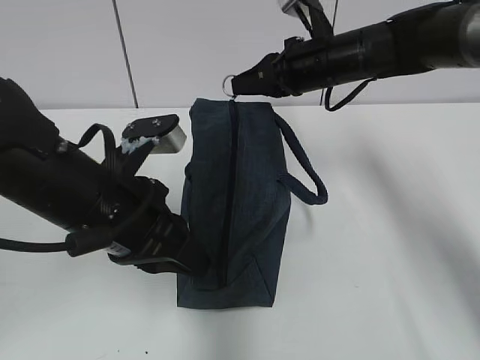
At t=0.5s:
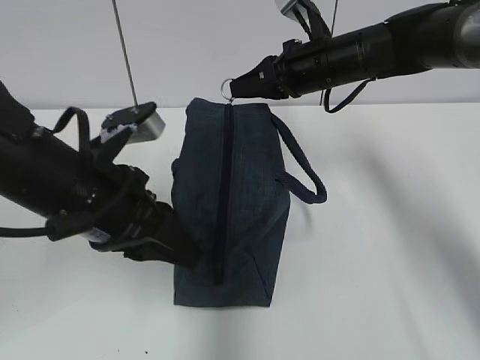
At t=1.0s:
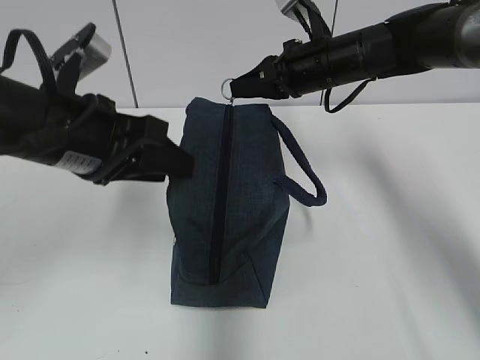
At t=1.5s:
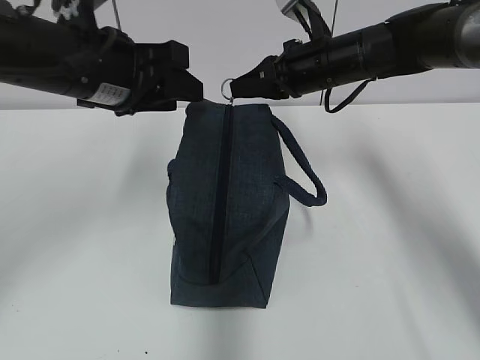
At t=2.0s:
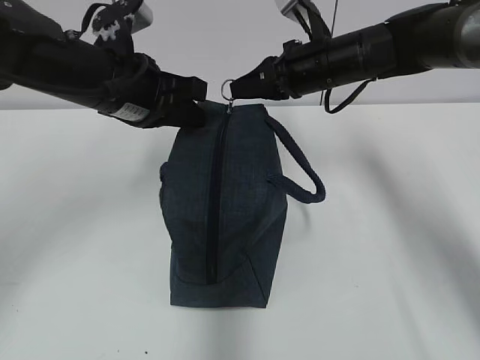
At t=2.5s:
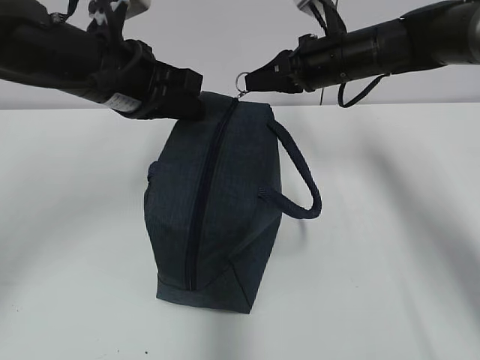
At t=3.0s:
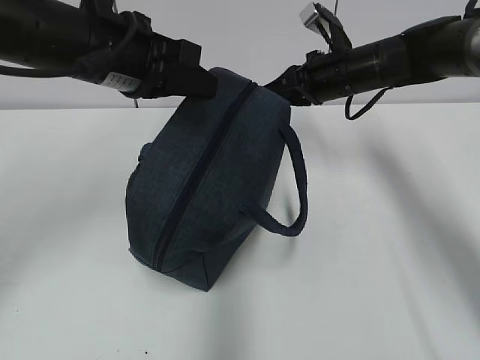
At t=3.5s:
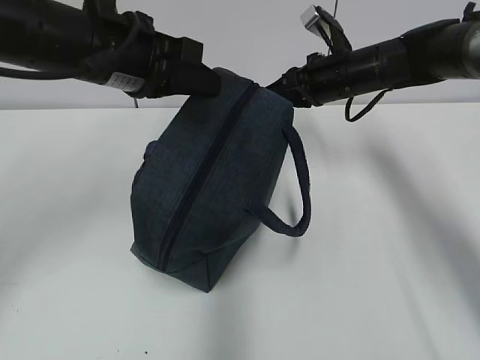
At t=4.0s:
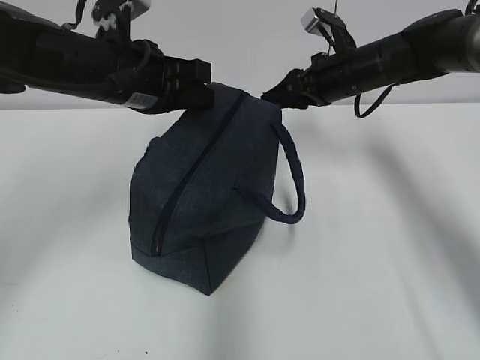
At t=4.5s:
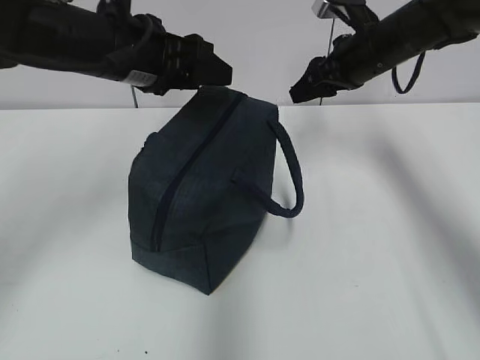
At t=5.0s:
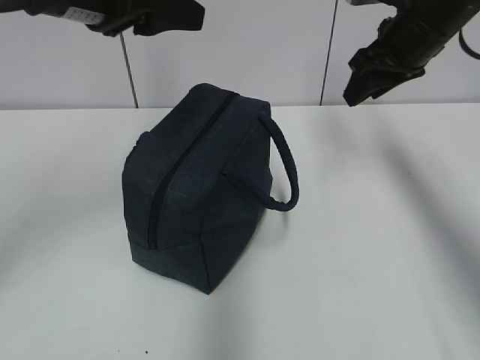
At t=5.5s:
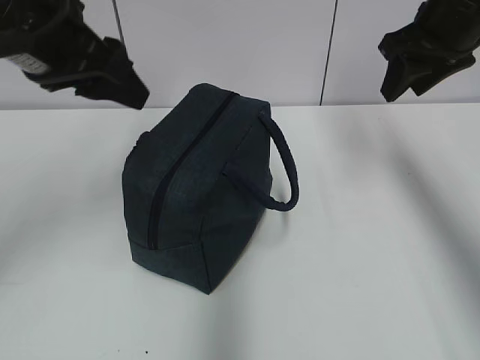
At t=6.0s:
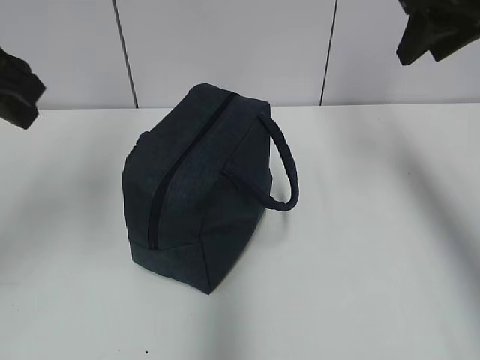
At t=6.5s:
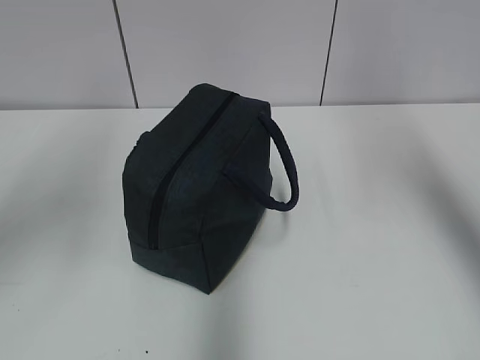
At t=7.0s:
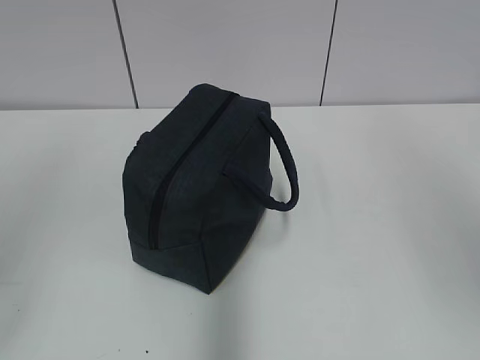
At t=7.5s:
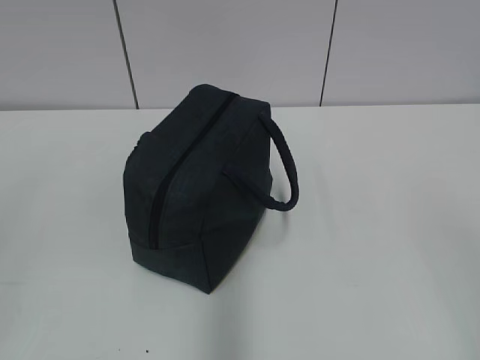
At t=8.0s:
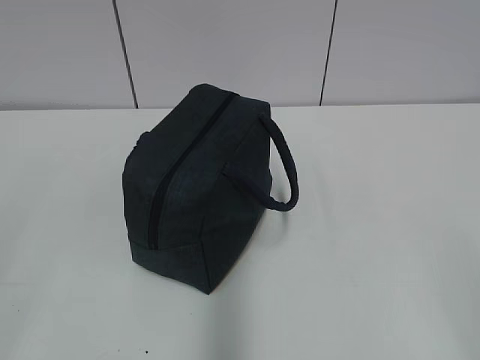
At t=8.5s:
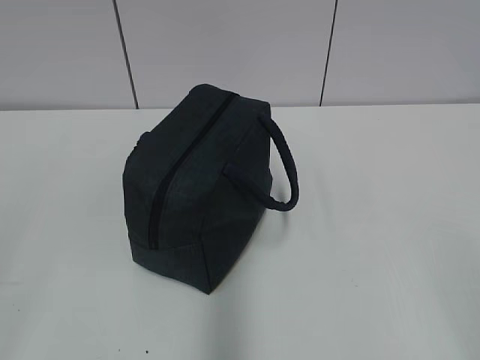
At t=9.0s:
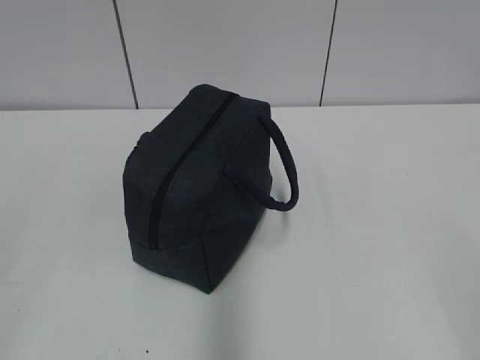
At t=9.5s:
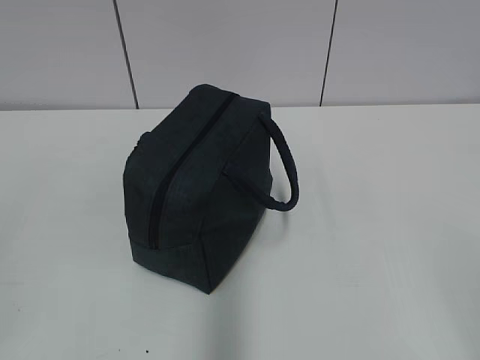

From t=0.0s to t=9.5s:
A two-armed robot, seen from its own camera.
From t=0.0s to t=2.0s: The left gripper shifts roughly 10 cm forward, and opens, then closes again.
From t=2.0s to t=4.0s: The right gripper shifts by about 5 cm, and opens.
From t=4.0s to t=5.5s: The right gripper travels upward, backward and to the right by some 15 cm, while the left gripper is displaced upward and backward by approximately 10 cm, and opens its fingers.
From t=5.5s to t=7.5s: The left gripper heads backward and to the left, covering about 35 cm. The right gripper is displaced backward by approximately 40 cm.

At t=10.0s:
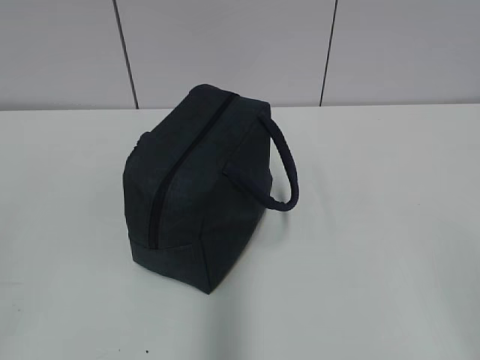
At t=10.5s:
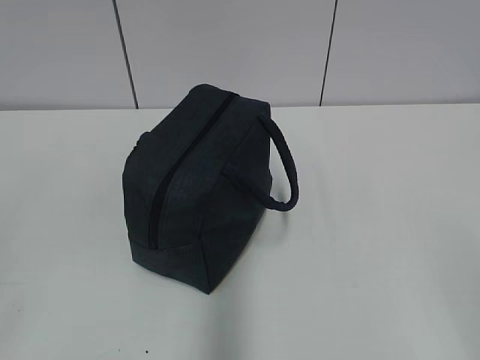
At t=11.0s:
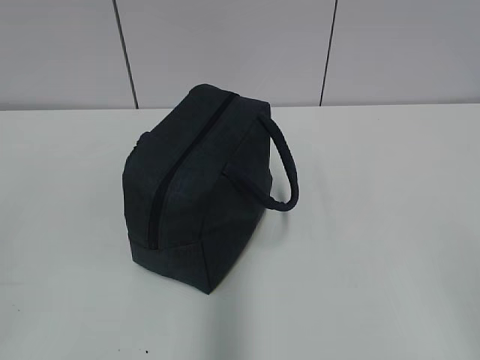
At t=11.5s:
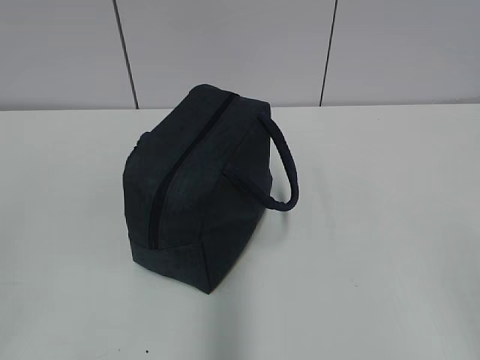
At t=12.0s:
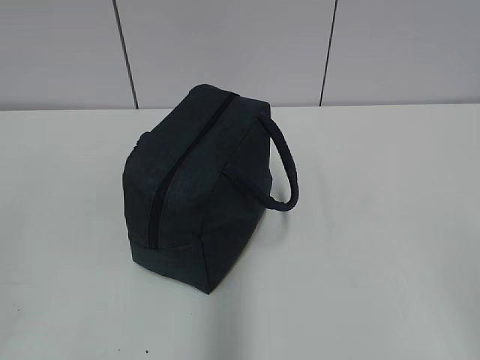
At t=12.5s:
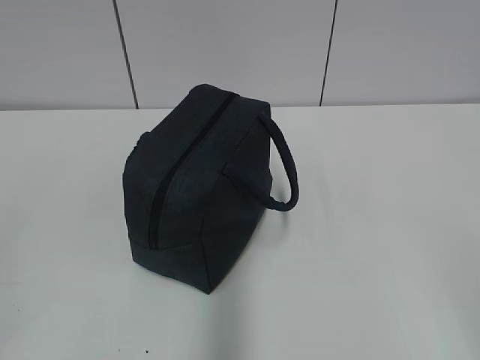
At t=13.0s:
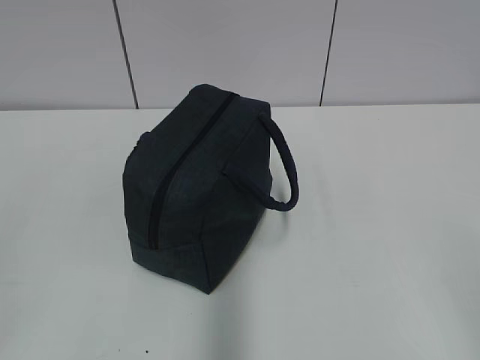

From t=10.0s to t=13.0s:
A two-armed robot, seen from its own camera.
From t=10.0s to t=11.5s: Neither gripper changes place.
From t=11.5s to t=13.0s: Both grippers stay about where they are.
